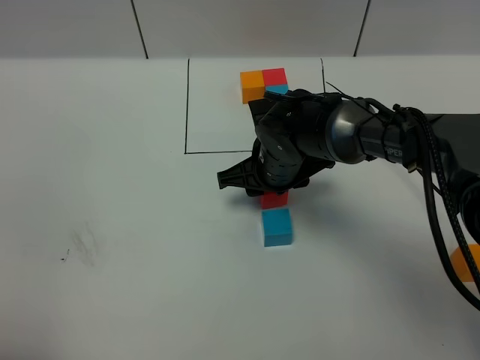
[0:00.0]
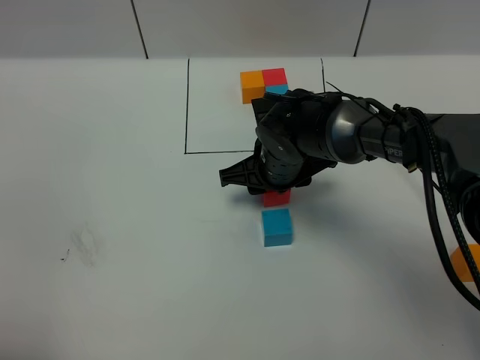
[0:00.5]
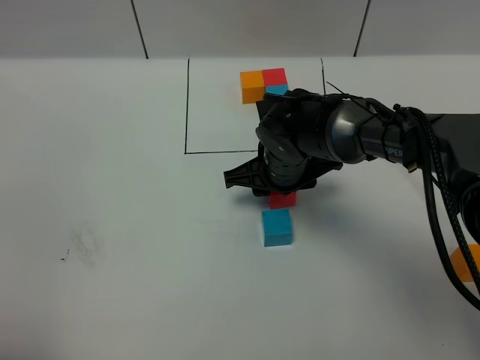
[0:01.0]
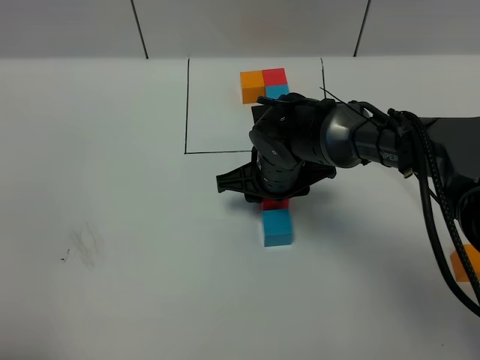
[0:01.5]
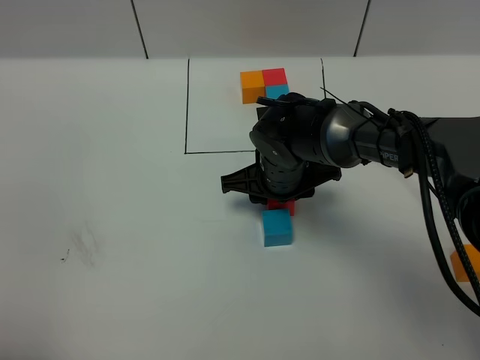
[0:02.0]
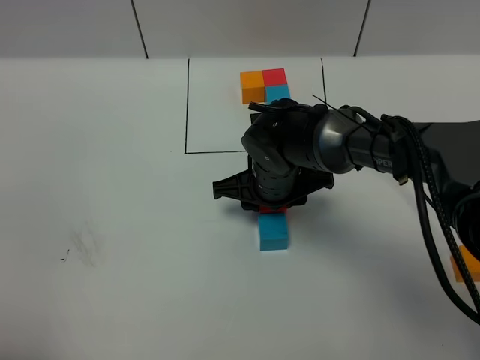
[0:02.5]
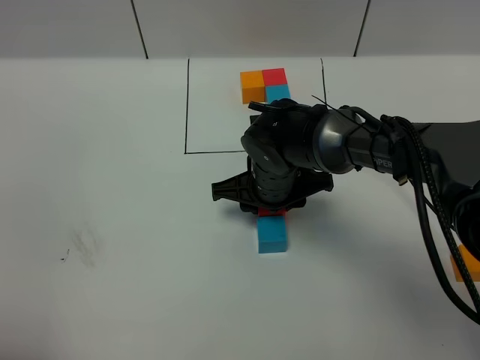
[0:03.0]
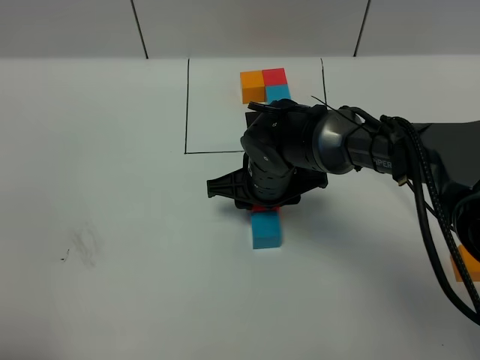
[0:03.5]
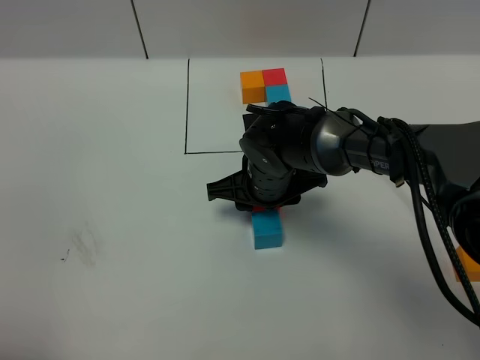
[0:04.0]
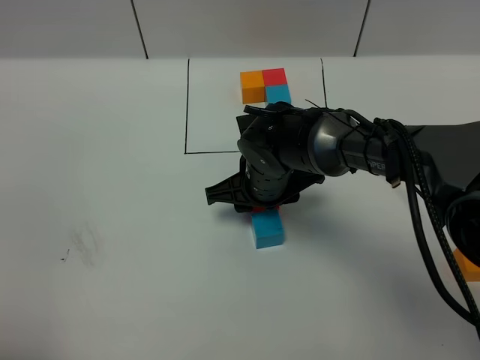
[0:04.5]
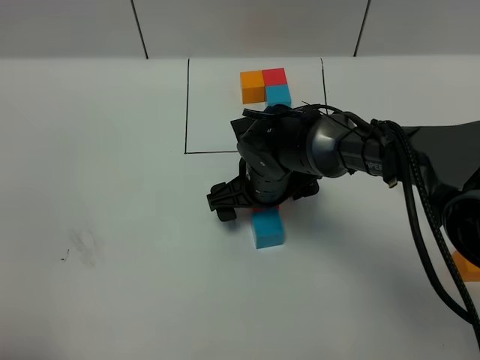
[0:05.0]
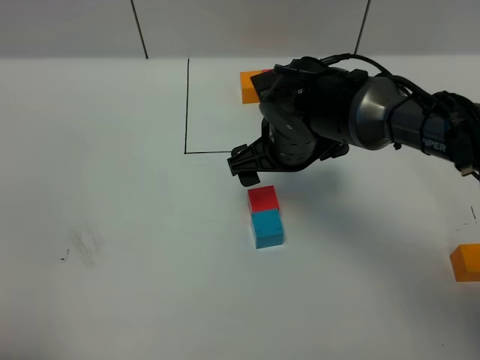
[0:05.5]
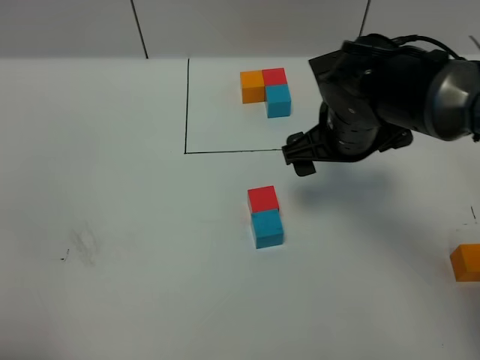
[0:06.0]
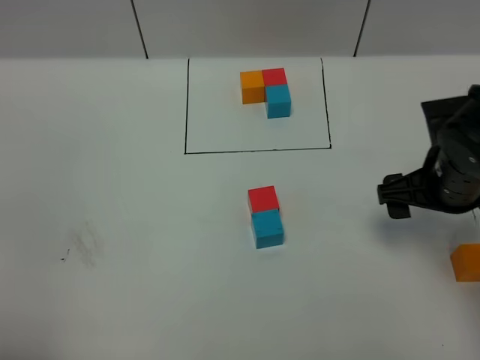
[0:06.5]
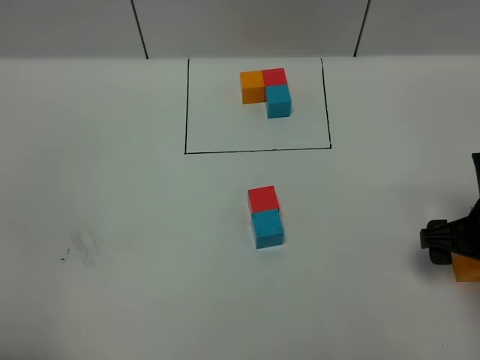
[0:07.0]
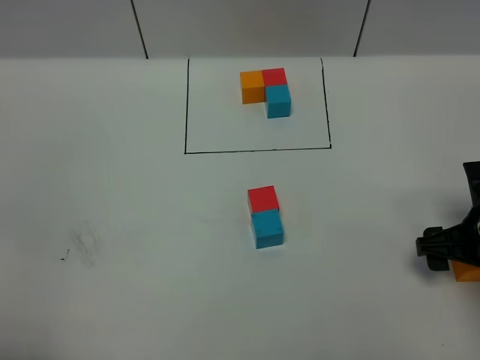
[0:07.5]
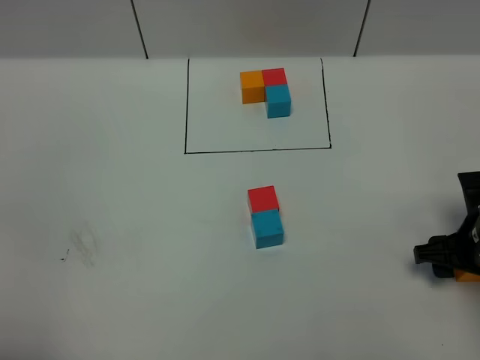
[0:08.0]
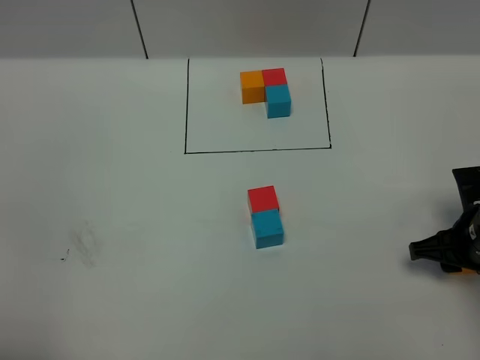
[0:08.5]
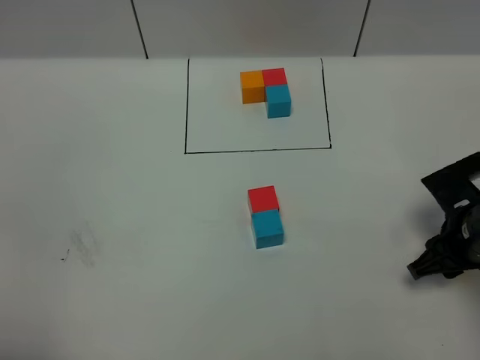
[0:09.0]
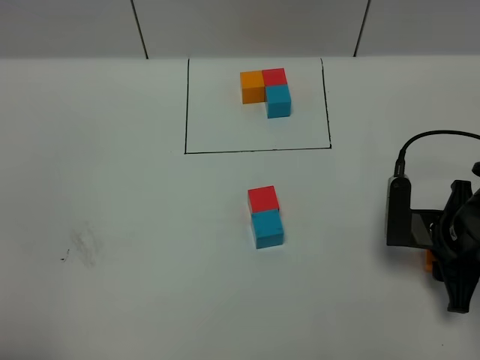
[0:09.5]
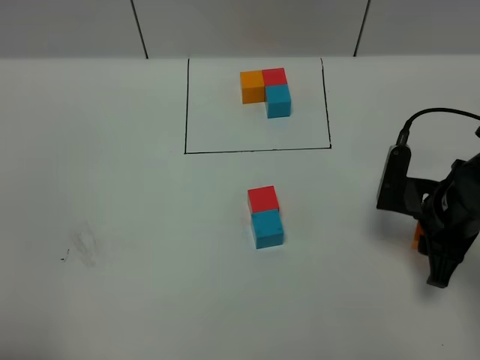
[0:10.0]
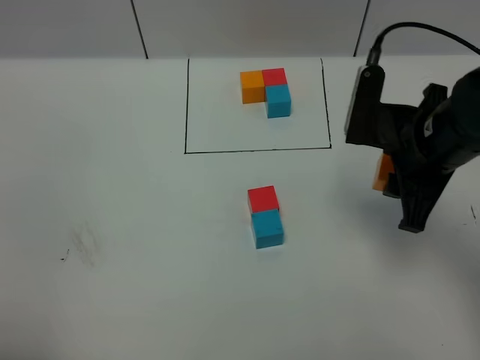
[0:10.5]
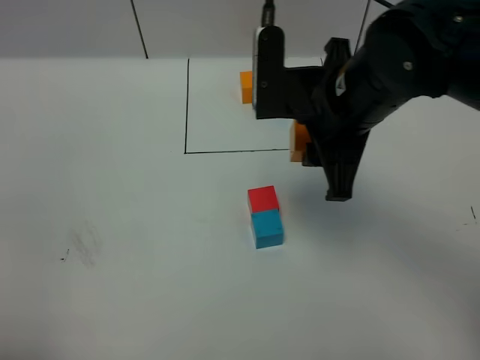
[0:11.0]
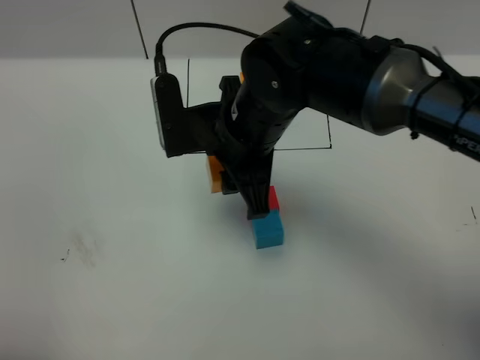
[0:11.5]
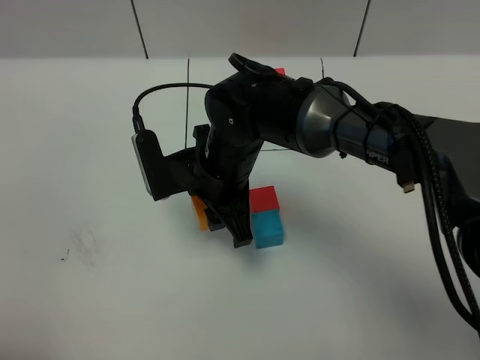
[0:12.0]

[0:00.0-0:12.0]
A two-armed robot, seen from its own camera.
Task of the whole recording: According to the building block template in front, assemble the scattered blocks together.
Step, 0.0 to 4.5 s: Put the red cube on the behind of the blue cube.
0.0 to 4.0 s: There are only small adjustments of the grippers.
4.0 to 6.0 s: The right gripper shifts some 15 cm to the right and upward, and opens up.
6.0 to 8.0 s: The right gripper heads to the right, downward and backward, covering some 20 cm.
8.0 to 10.0 s: The right gripper changes place by approximately 5 cm.
10.0 to 12.0 s: The right gripper shifts approximately 25 cm to the left.

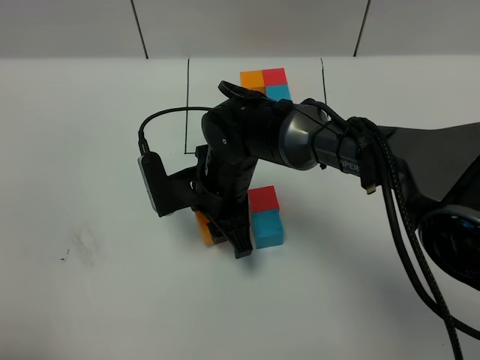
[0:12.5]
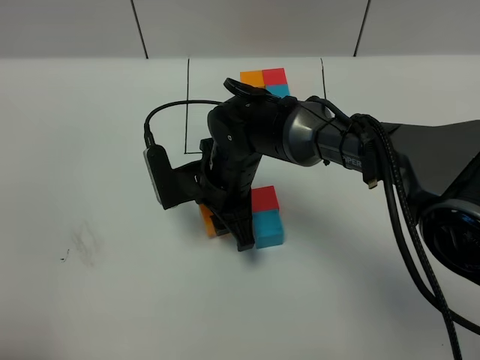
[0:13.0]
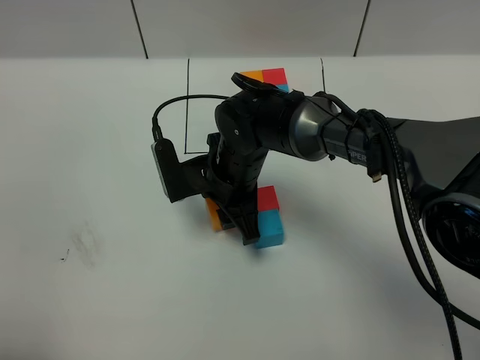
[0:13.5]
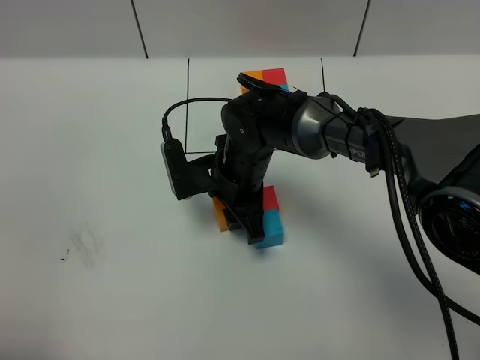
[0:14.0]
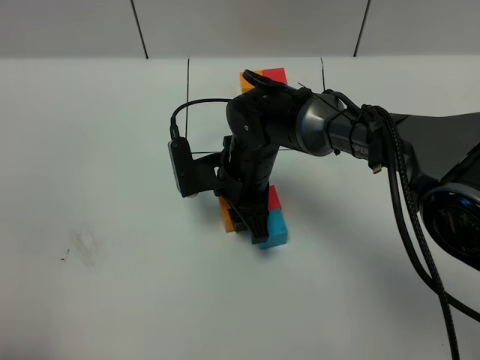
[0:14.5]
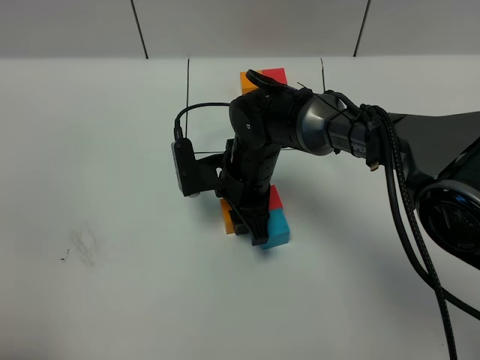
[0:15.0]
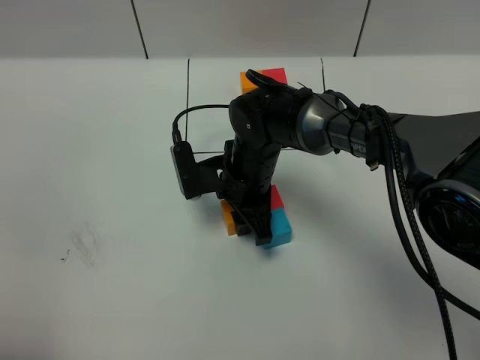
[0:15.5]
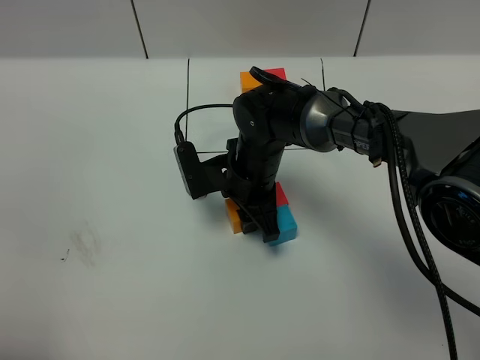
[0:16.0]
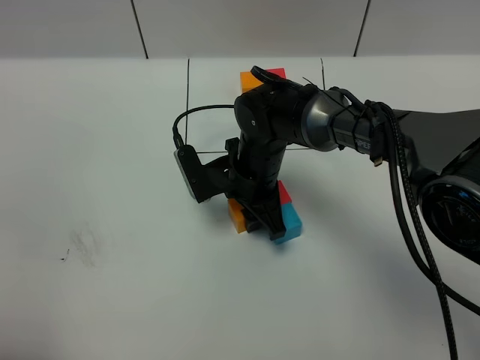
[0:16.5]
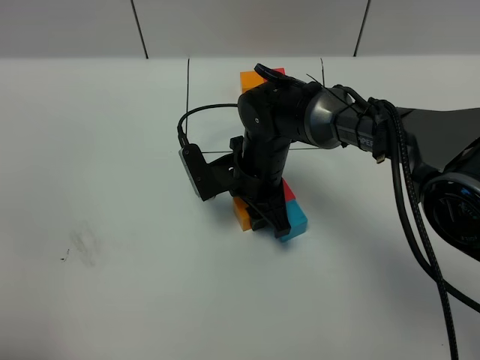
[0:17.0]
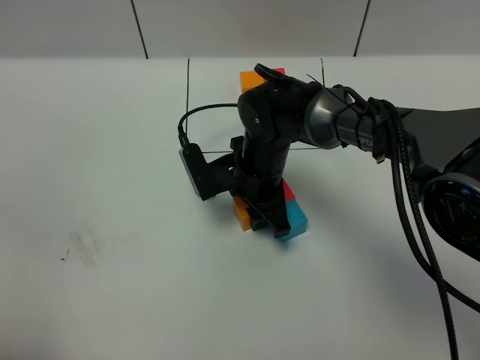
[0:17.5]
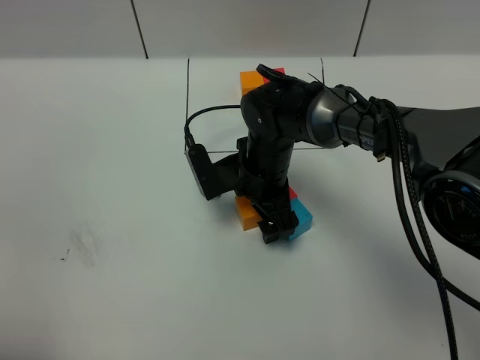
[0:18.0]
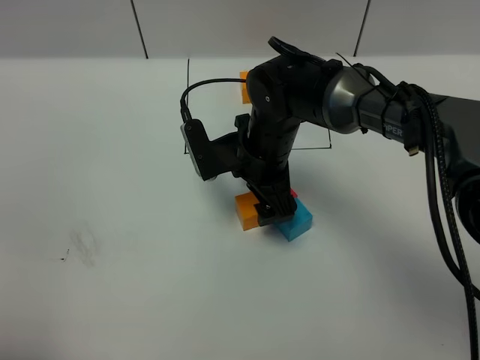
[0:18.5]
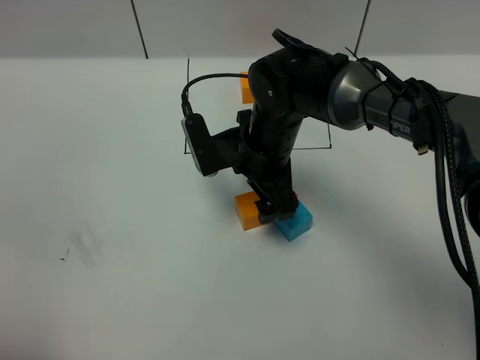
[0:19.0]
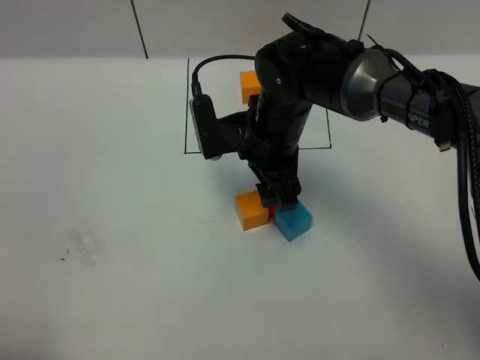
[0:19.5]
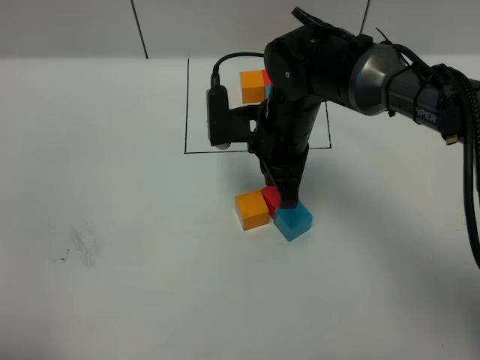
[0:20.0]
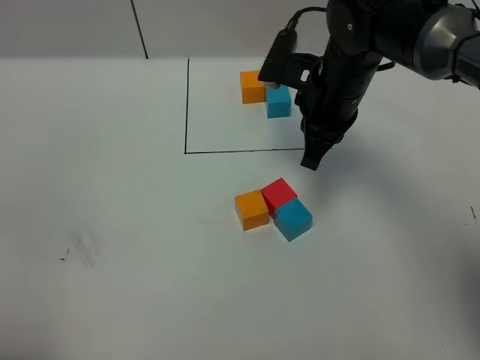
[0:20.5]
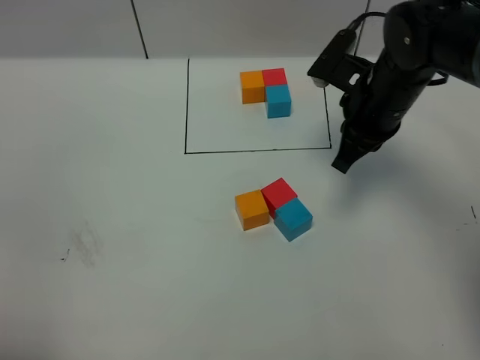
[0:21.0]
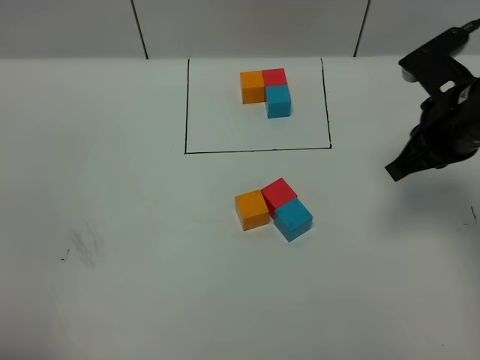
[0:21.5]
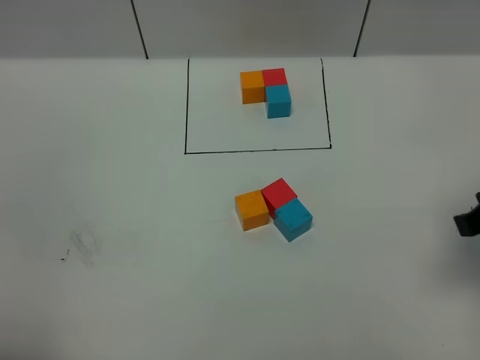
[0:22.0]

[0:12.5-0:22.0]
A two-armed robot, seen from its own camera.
Task of the whole recording: According to the building block template in front, assemble the scattered blocks together.
12.5 to 16.5 s: The grippers stay close to where they were, moving slightly.
16.5 to 18.0 s: The right gripper opens up.
18.0 to 20.0 s: The right gripper shifts roughly 10 cm upward, and closes its fingers.
20.0 to 22.0 s: The right gripper travels to the right and backward by roughly 30 cm.

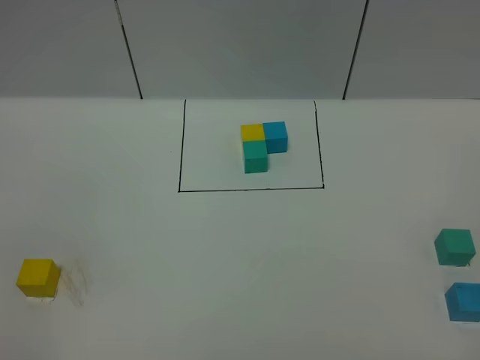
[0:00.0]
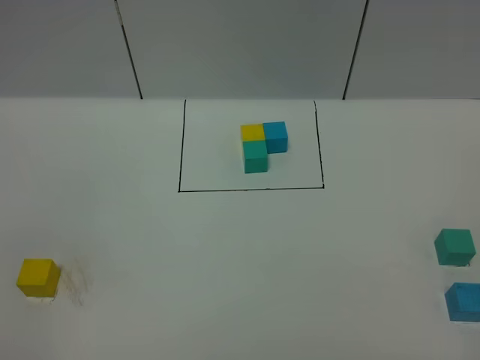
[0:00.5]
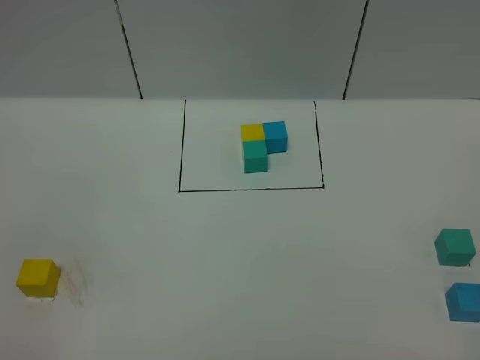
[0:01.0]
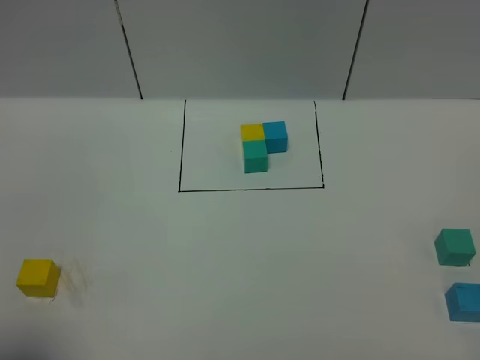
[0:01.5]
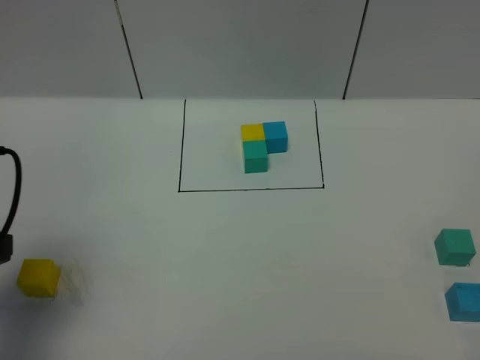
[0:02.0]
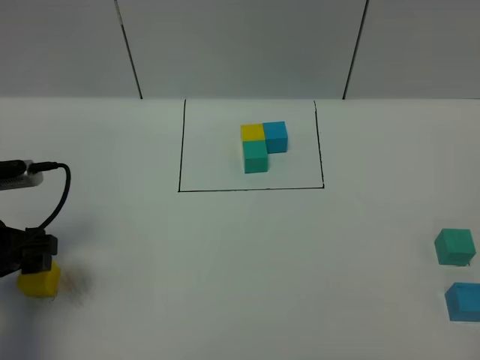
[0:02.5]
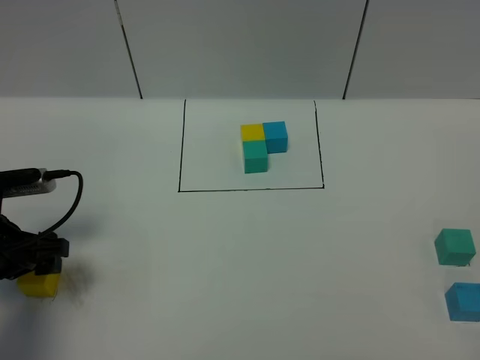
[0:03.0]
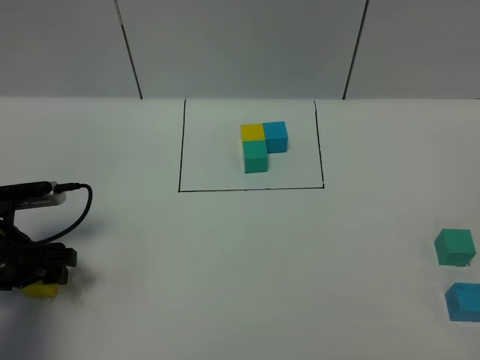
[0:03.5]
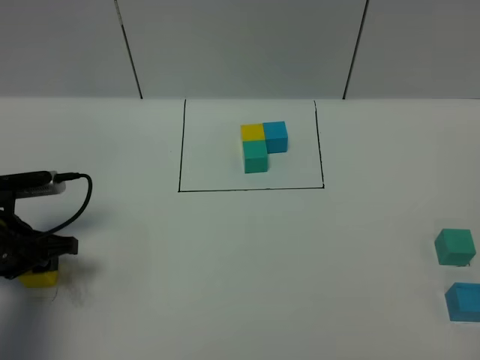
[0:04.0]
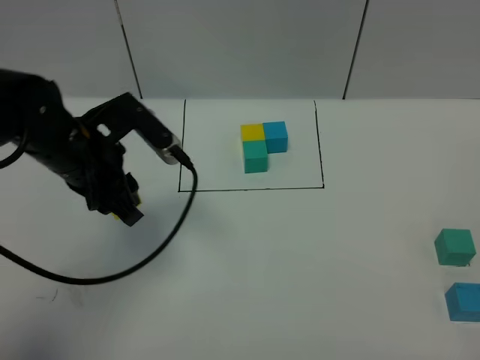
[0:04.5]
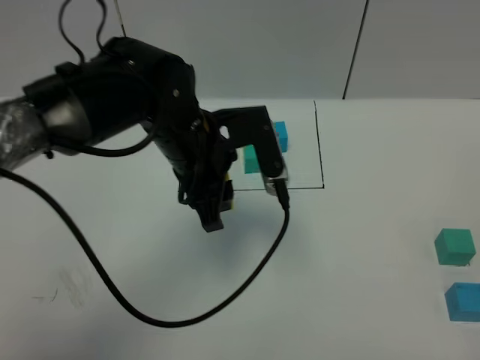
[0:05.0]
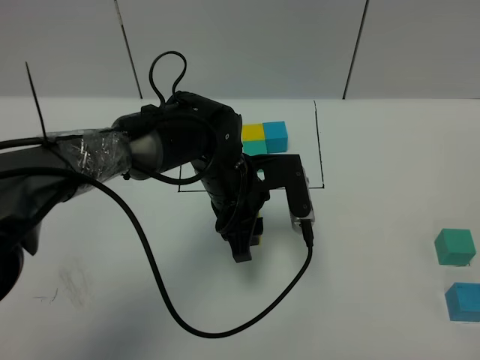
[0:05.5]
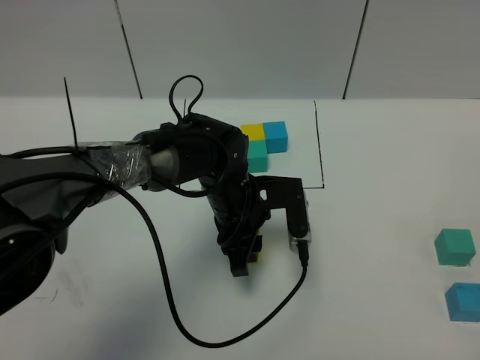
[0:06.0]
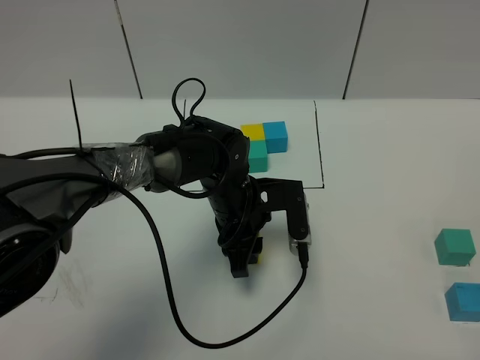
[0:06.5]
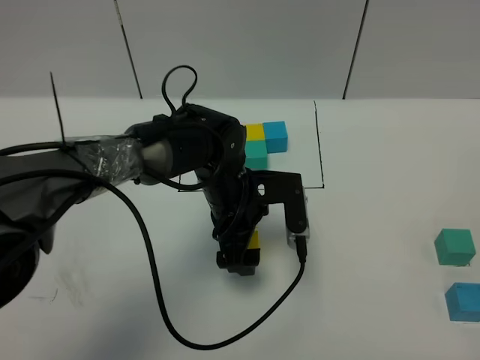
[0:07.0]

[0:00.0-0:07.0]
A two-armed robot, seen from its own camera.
Task of the whole recording: According to the building block template in front, assemble the scattered blocks together.
0.0 to 2.0 s: The left gripper is displaced forward by roughly 20 cm.
2.0 to 3.5 s: The left gripper goes some 15 cm downward and forward.
3.5 to 5.0 s: The left gripper shifts about 25 cm to the right and upward, and closes.
5.0 to 7.0 s: The left gripper travels downward by about 10 cm, and opens.
